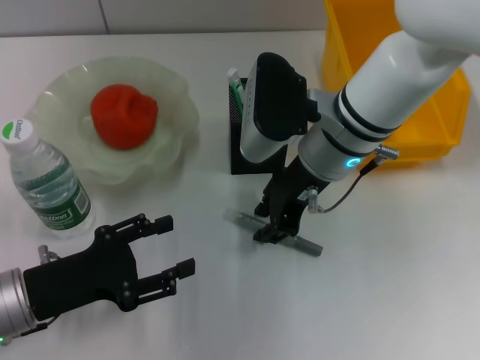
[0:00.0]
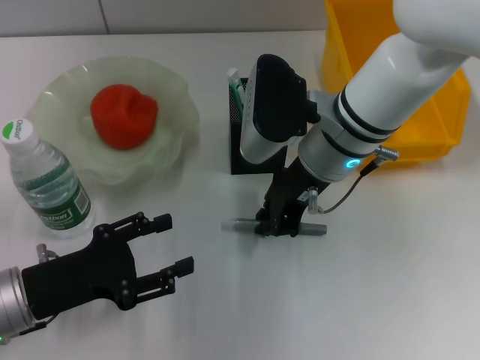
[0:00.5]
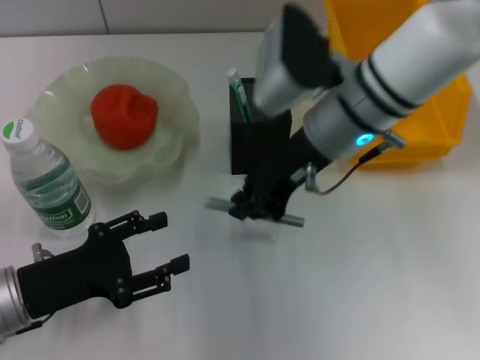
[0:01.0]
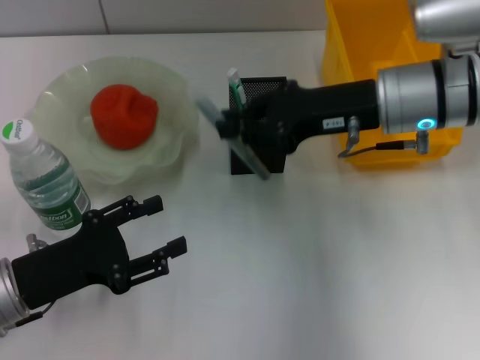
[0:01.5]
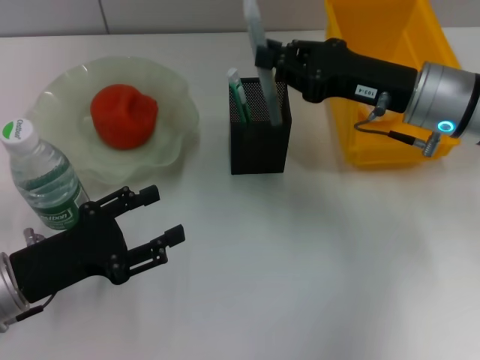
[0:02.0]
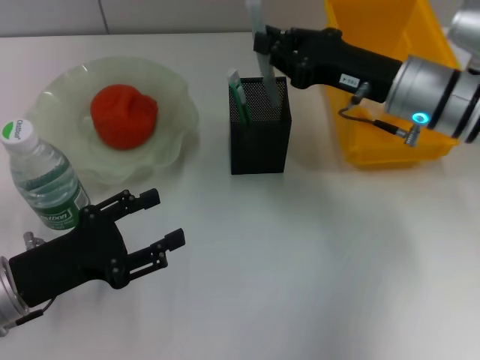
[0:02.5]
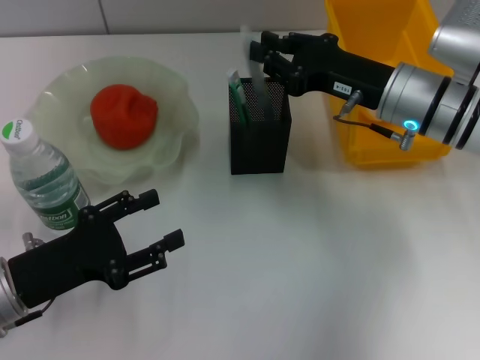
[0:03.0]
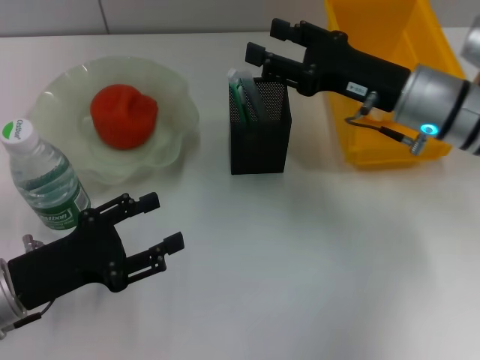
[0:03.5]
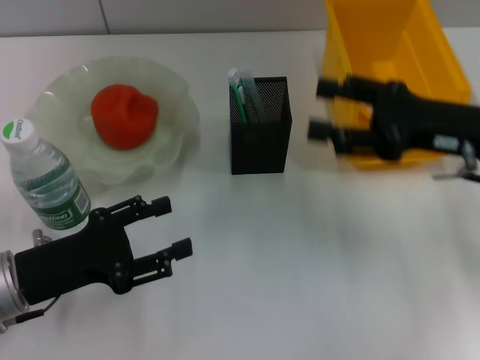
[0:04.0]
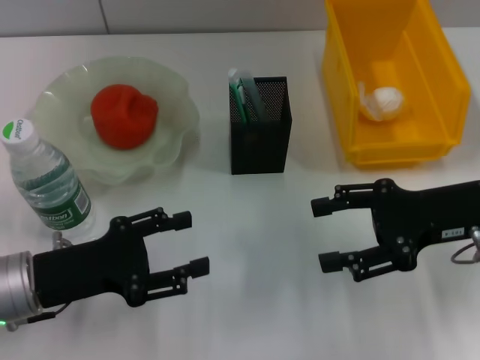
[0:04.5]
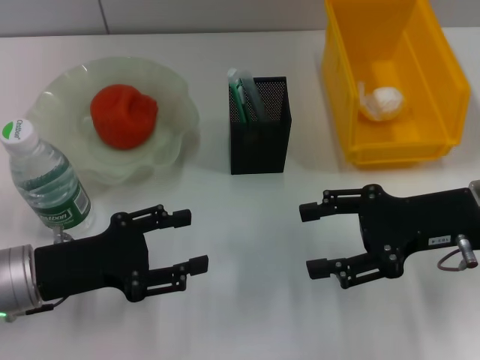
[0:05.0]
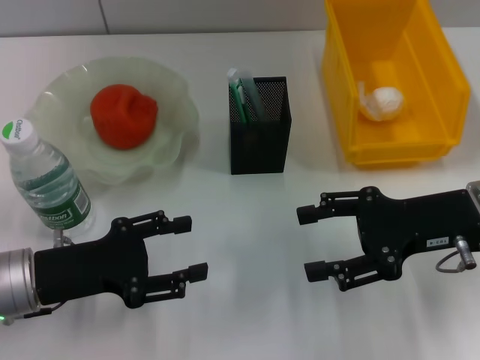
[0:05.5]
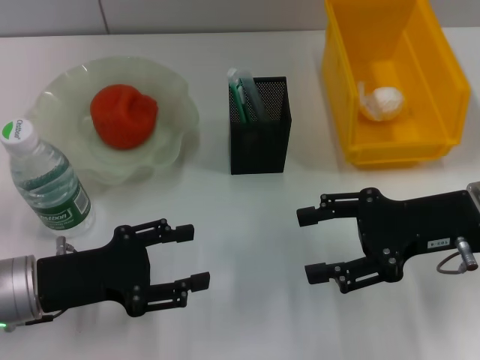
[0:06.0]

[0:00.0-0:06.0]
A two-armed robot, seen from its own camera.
Step, 0:00.5 to 0:03.0: Place the gray glue into the pen holder with the right hand.
0:00.0 to 0:02.0: The right gripper shifts about 10 cm to the right, and closes.
0:02.0 to 0:04.0: The right gripper travels to the right by roughly 5 cm, and opens.

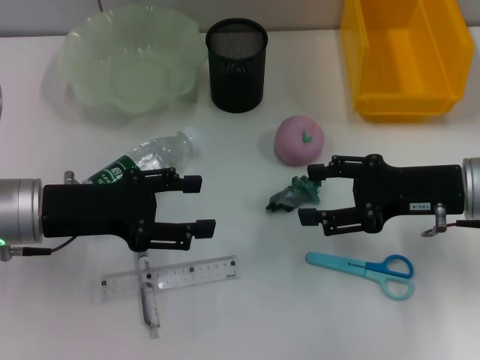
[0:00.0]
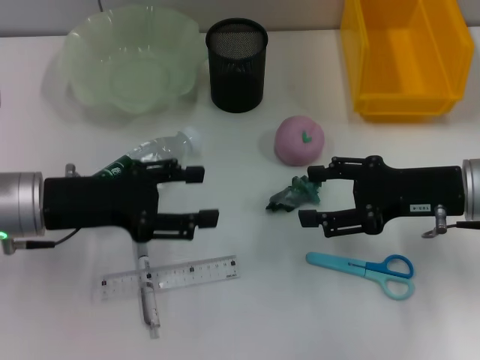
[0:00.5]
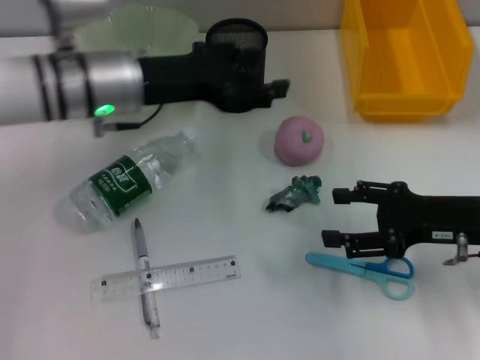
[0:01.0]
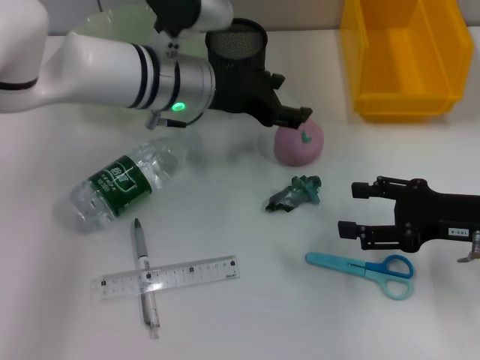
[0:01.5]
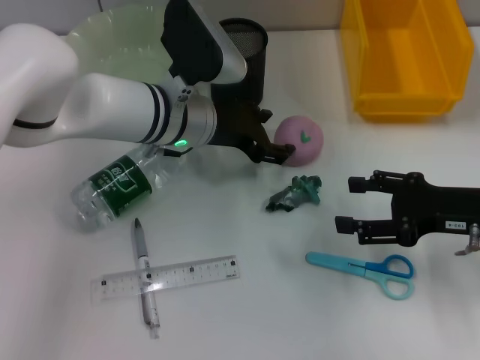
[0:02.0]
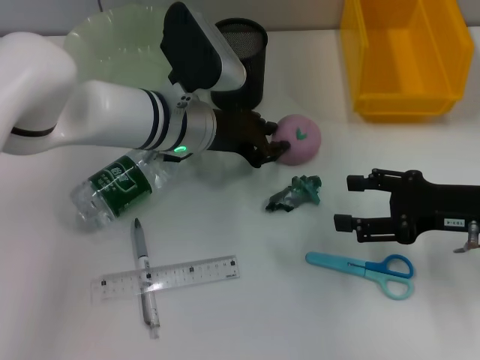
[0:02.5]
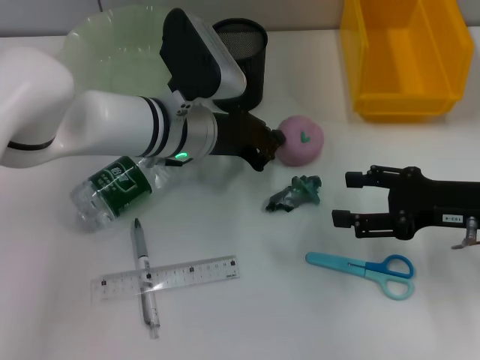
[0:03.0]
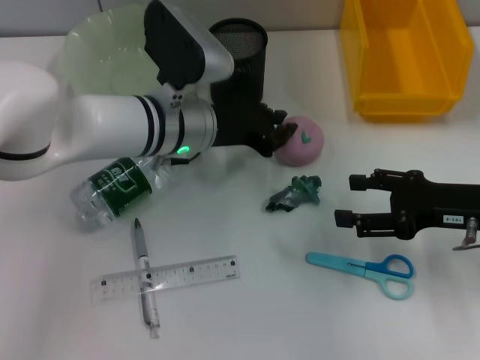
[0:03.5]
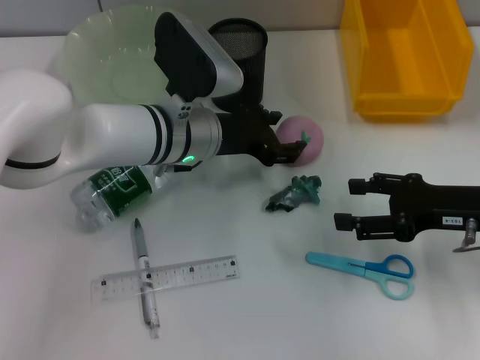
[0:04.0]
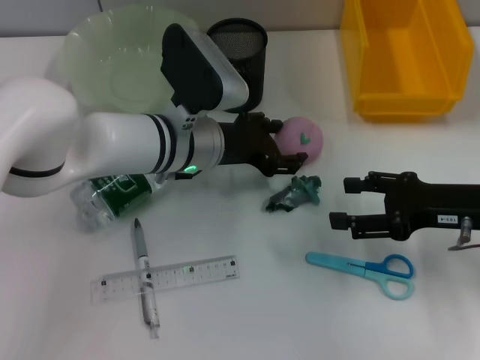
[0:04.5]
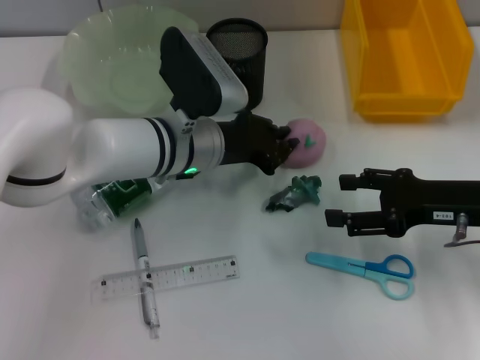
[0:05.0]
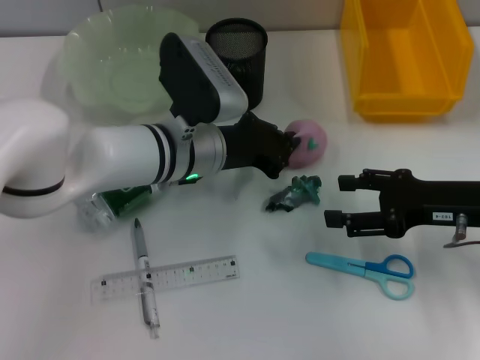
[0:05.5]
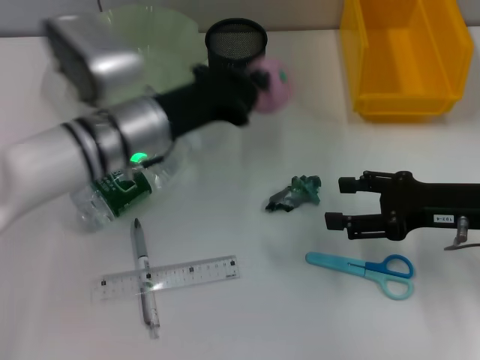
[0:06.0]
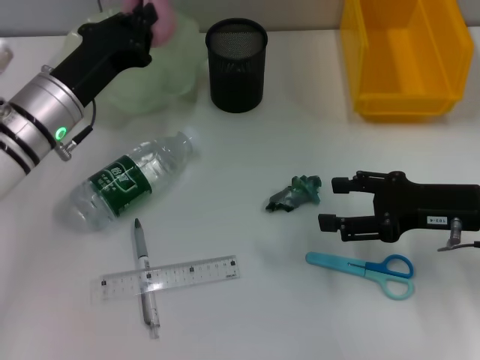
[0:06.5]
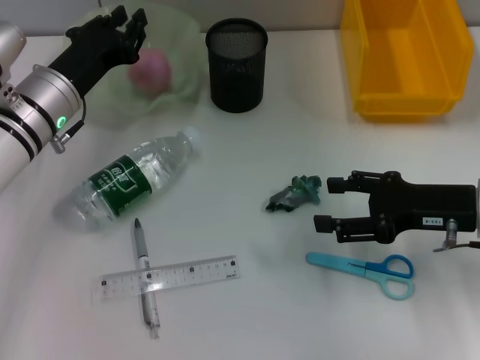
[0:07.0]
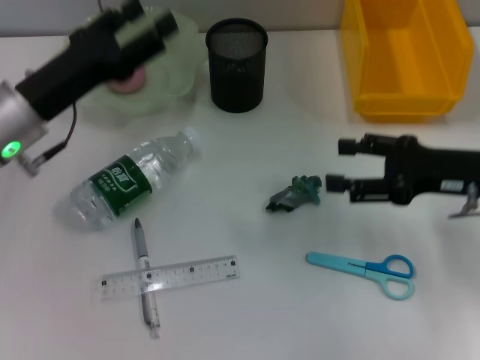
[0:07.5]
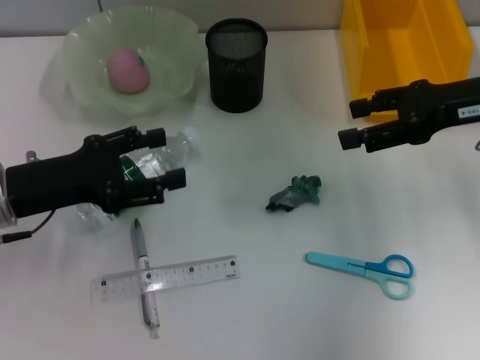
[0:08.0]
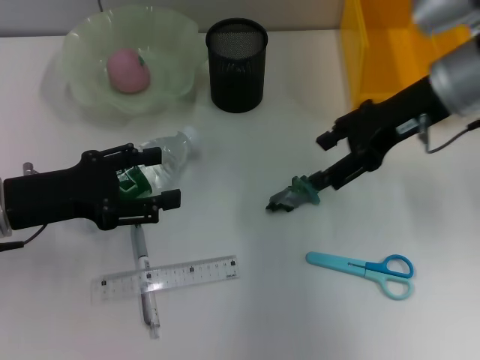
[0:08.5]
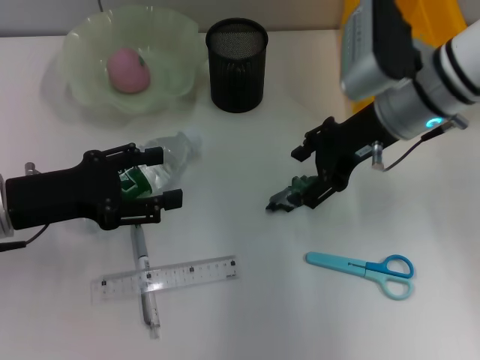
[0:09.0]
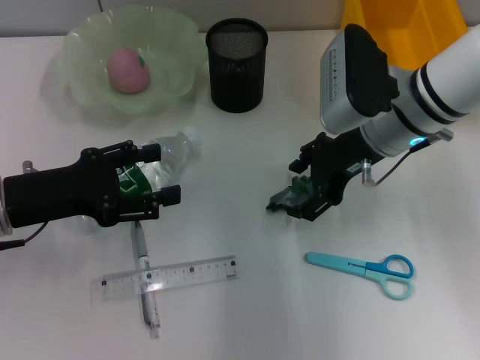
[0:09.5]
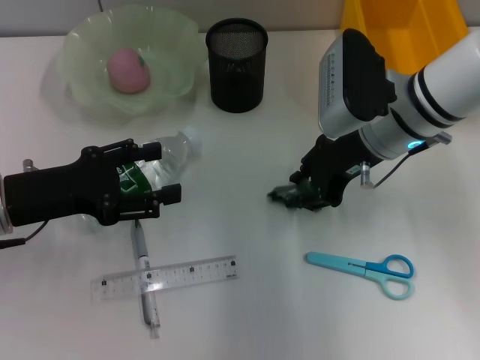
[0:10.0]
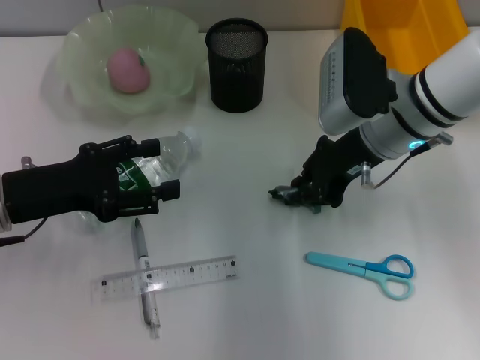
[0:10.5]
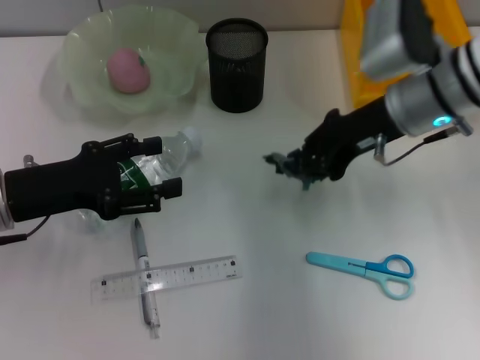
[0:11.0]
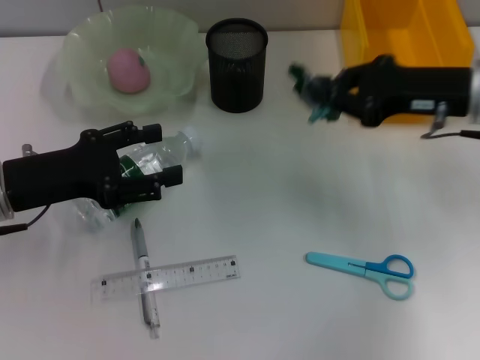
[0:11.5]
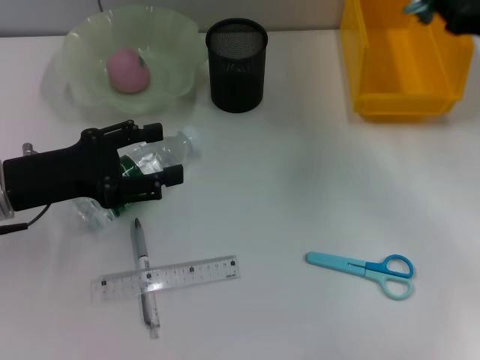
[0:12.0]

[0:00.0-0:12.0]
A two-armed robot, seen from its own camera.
Step, 0:00.0 to 0:05.5: Grab the peach with the left hand.
Step, 0:06.0 to 0:06.5: Place the peach into the fruit bowl with the left hand.
Step, 0:07.0 to 0:10.0: Grab the plastic with the right hand.
0:00.0 to 0:02.0: The left gripper heads to the right and forward, covering about 20 cm.
0:02.0 to 0:04.0: The left gripper closes.
0:04.0 to 0:06.0: The left gripper heads to the left, covering roughly 5 cm, and closes.
0:06.0 to 0:08.0: The right gripper moves upward and forward, some 15 cm, while the left gripper travels to the left and backward by roughly 15 cm, and opens its fingers.
0:08.0 to 0:10.0: The right gripper moves to the left and downward, roughly 15 cm.
0:10.0 to 0:12.0: The right gripper is displaced to the right by some 15 cm, and closes.

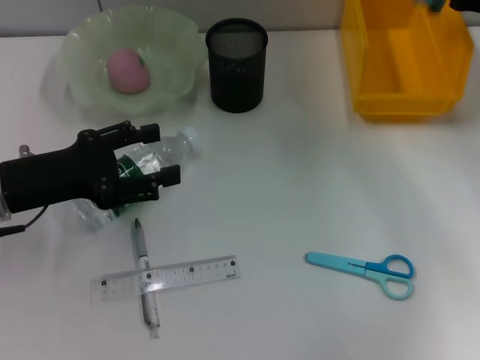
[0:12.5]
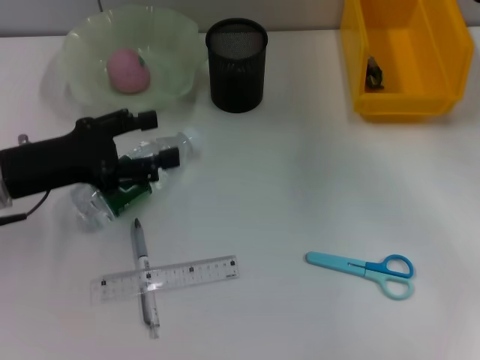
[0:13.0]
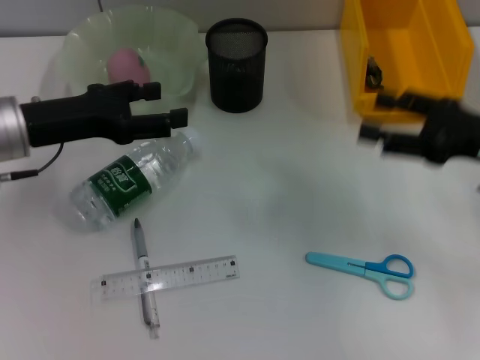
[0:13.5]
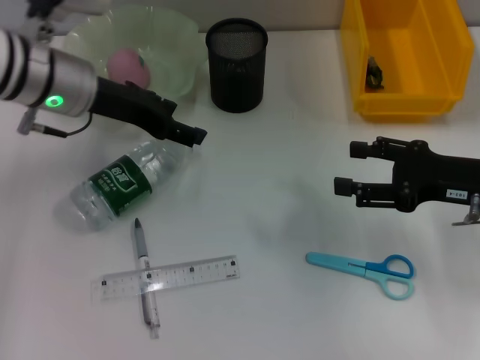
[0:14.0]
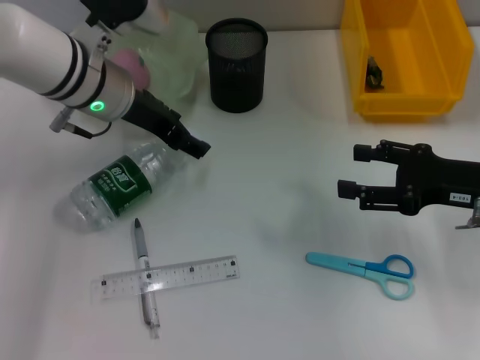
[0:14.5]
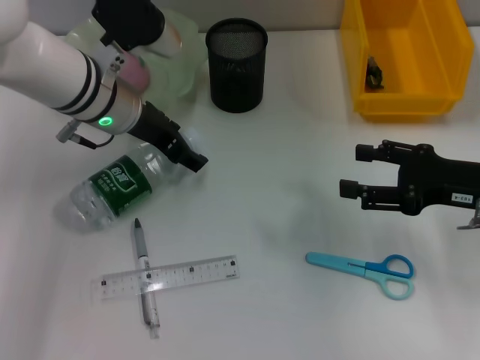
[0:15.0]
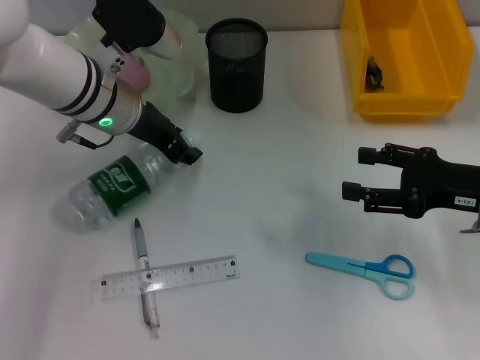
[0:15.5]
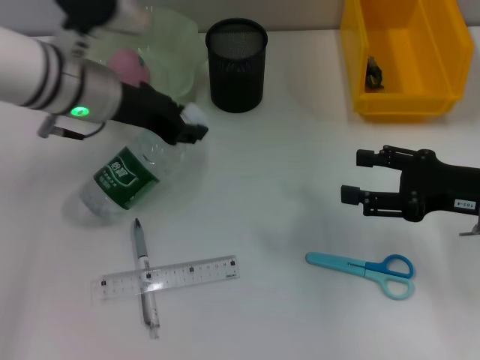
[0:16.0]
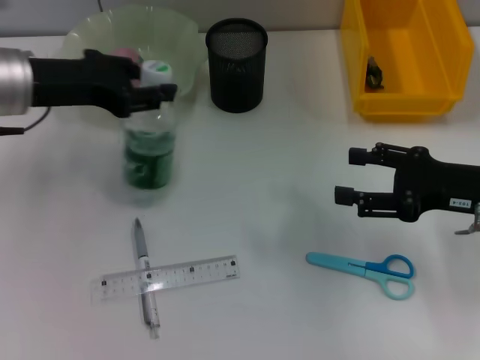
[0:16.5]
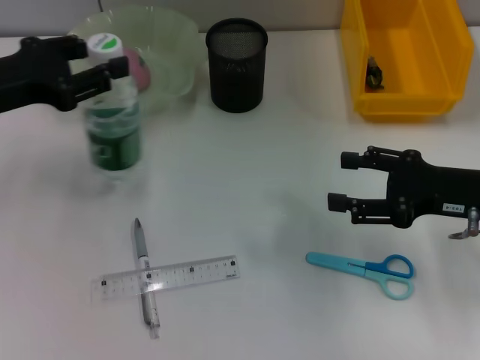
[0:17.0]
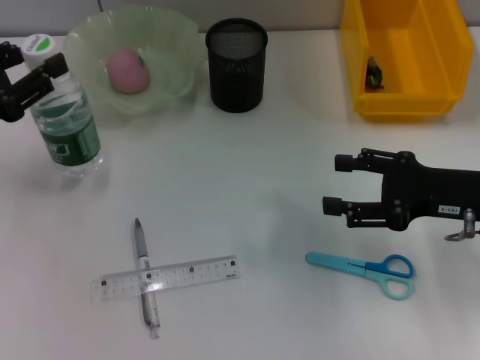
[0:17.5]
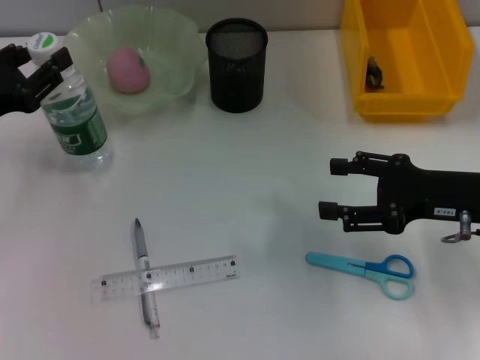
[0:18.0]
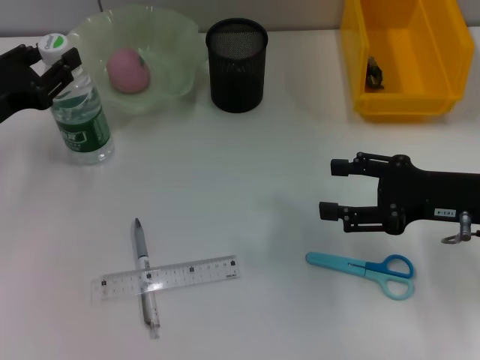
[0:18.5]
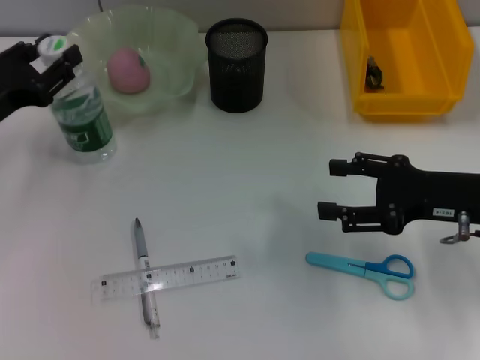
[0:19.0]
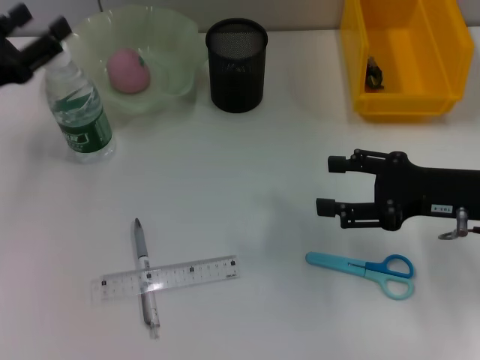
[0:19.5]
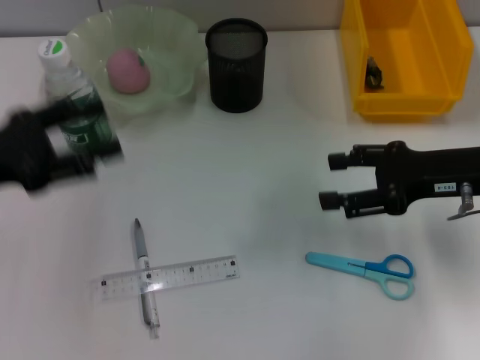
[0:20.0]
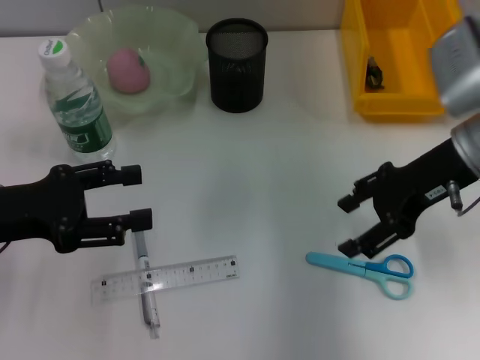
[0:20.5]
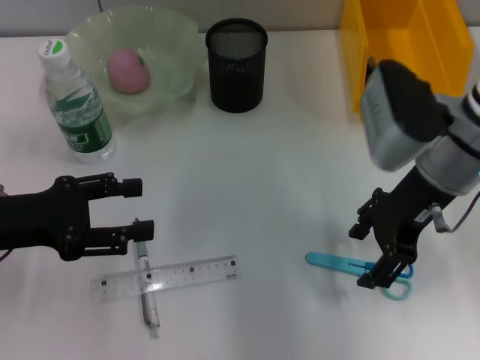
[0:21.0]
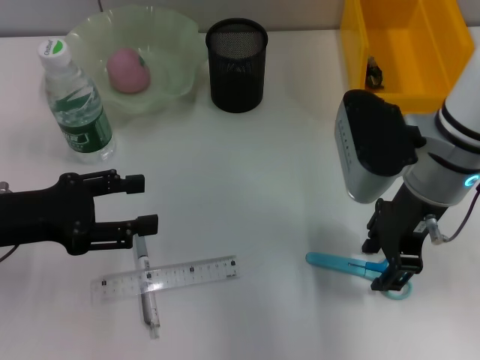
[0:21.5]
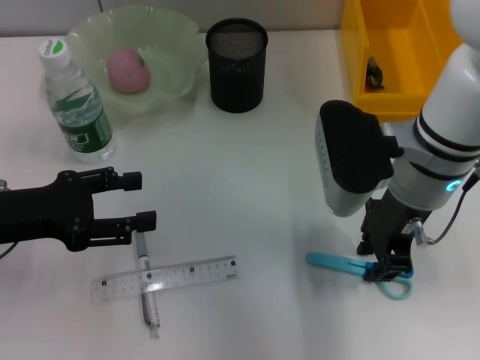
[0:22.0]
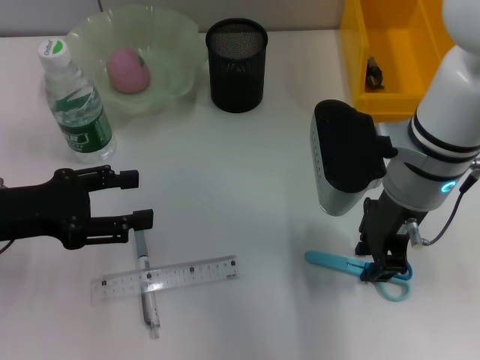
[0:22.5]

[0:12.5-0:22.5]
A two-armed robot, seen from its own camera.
Step, 0:13.0 to 0:15.0: Grab the water bottle with the left hand.
Step, 0:16.0 to 0:19.0: Place the water bottle on the table with the left hand.
0:12.5 to 0:14.5: The right gripper moves backward and downward, roughly 10 cm, and opens up; the left gripper travels forward and to the right by some 15 cm.
0:14.5 to 0:16.5: The left gripper moves to the left, approximately 10 cm, and closes its fingers.
0:16.5 to 0:18.5: The left gripper goes about 10 cm downward and to the left.
0:18.5 to 0:20.5: The left gripper goes about 5 cm backward, and opens up; the right gripper moves upward and forward, roughly 10 cm.
0:20.5 to 0:22.5: The right gripper goes approximately 10 cm to the left, and closes.
